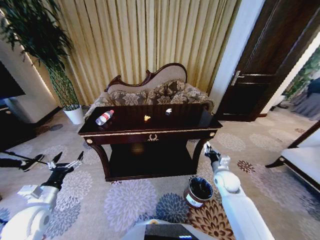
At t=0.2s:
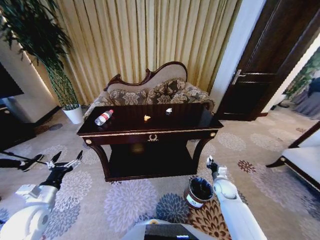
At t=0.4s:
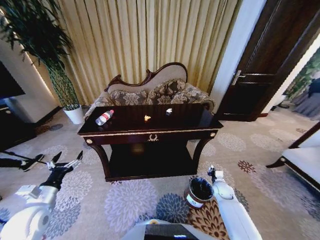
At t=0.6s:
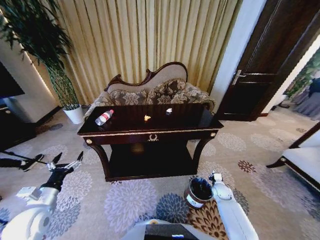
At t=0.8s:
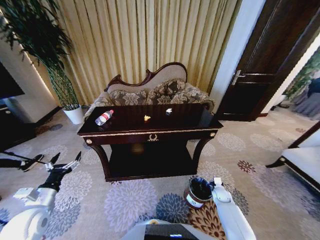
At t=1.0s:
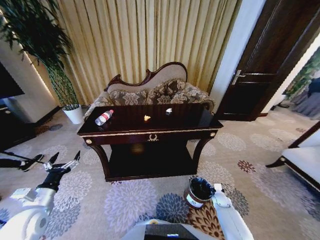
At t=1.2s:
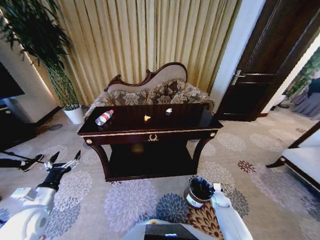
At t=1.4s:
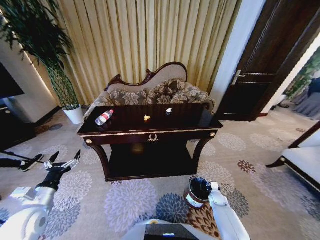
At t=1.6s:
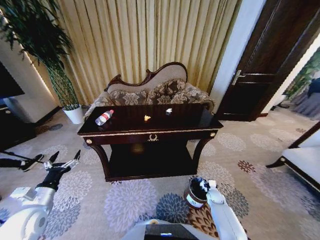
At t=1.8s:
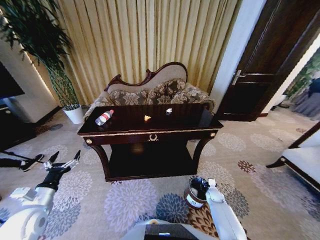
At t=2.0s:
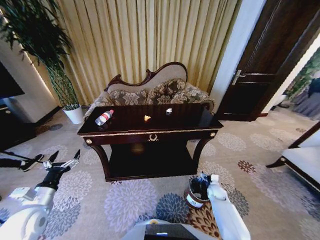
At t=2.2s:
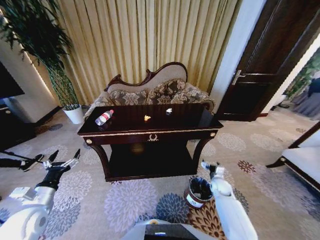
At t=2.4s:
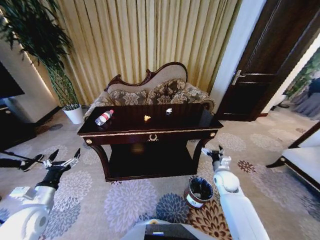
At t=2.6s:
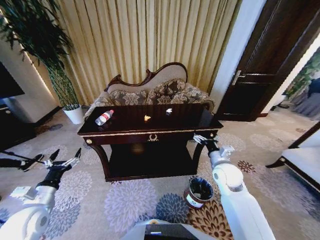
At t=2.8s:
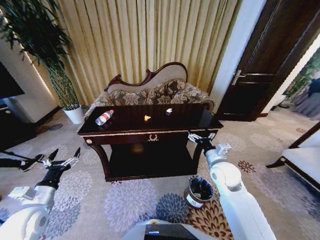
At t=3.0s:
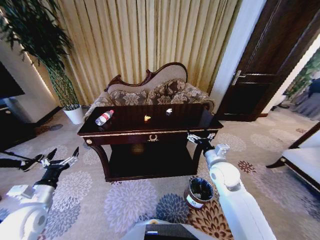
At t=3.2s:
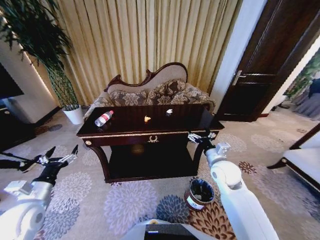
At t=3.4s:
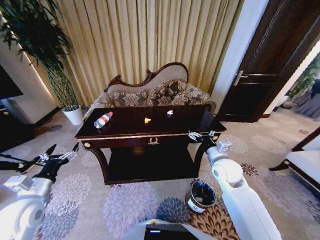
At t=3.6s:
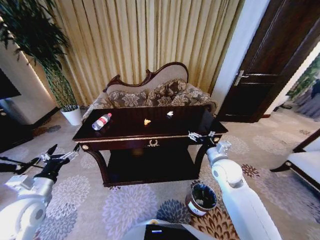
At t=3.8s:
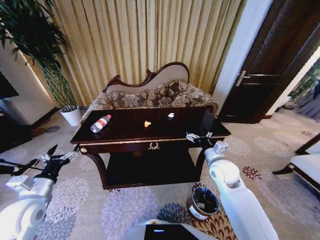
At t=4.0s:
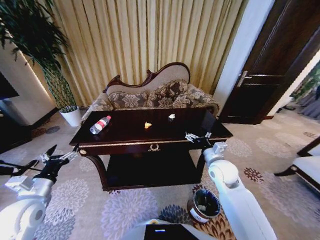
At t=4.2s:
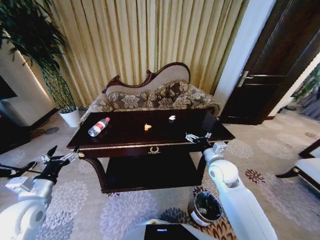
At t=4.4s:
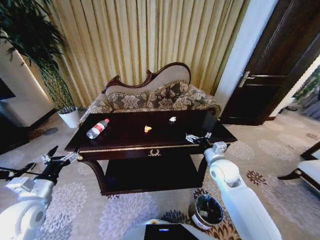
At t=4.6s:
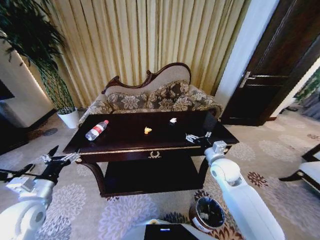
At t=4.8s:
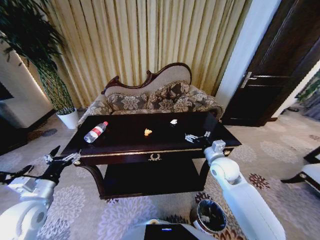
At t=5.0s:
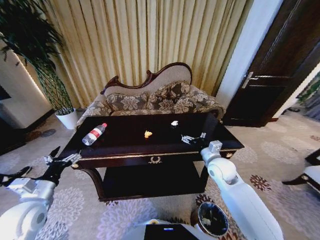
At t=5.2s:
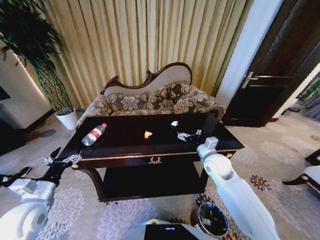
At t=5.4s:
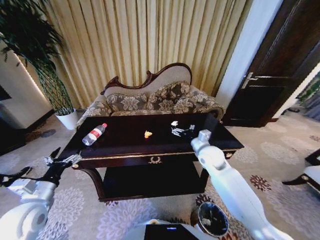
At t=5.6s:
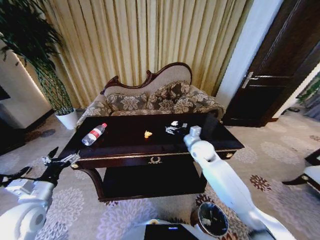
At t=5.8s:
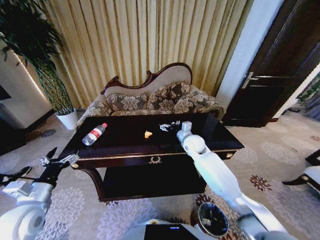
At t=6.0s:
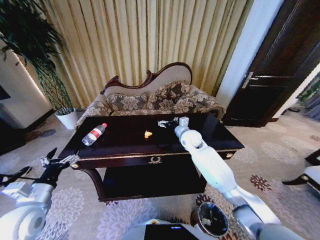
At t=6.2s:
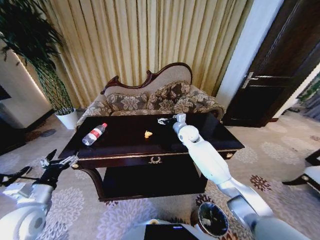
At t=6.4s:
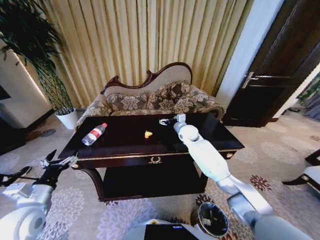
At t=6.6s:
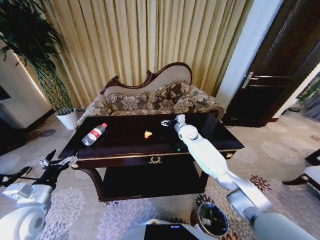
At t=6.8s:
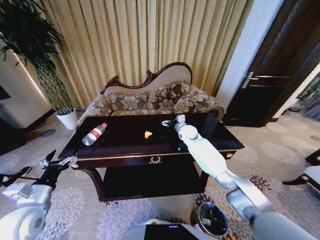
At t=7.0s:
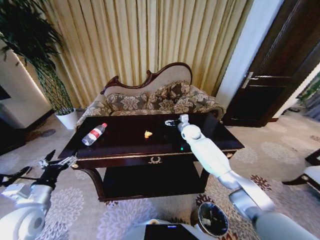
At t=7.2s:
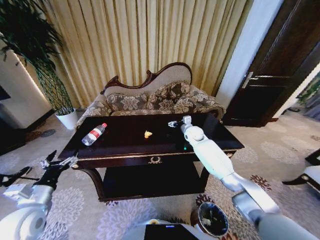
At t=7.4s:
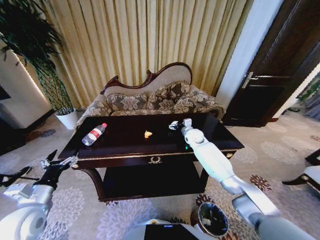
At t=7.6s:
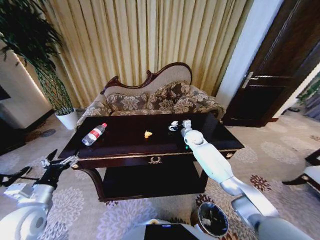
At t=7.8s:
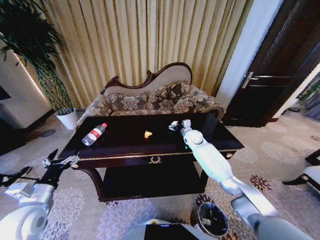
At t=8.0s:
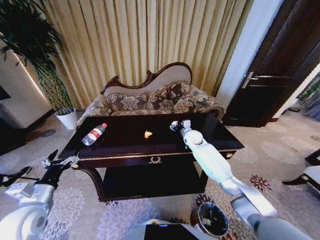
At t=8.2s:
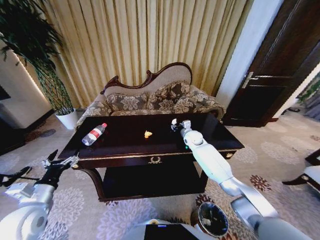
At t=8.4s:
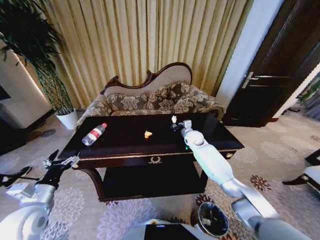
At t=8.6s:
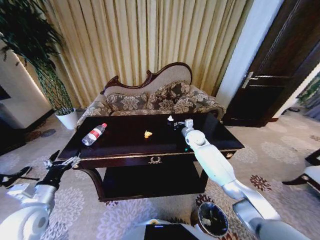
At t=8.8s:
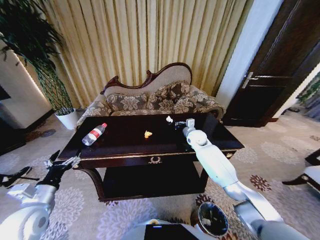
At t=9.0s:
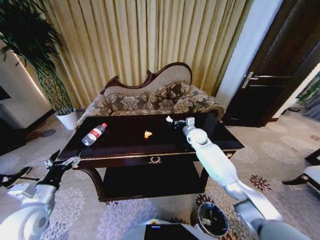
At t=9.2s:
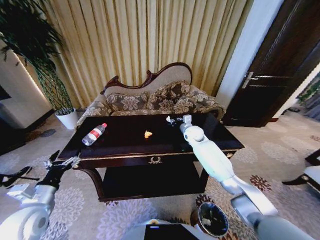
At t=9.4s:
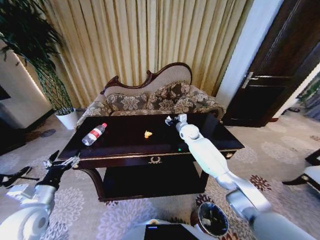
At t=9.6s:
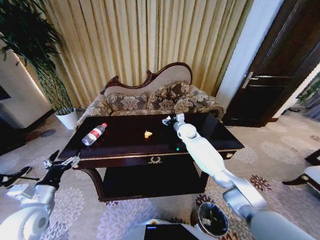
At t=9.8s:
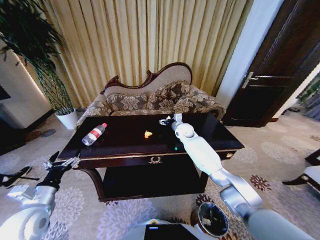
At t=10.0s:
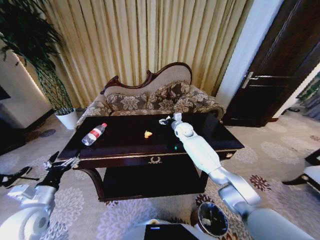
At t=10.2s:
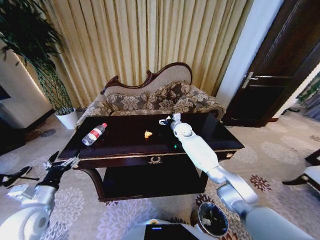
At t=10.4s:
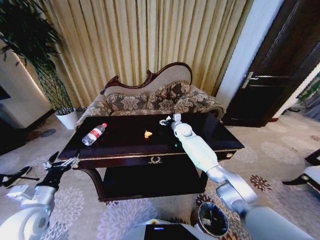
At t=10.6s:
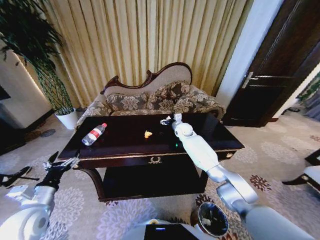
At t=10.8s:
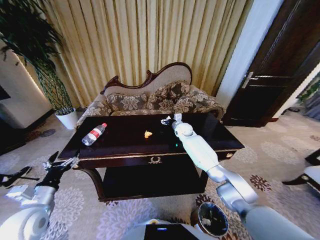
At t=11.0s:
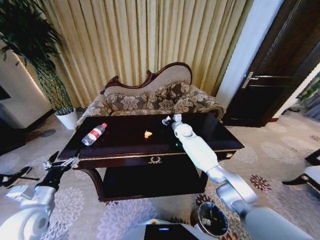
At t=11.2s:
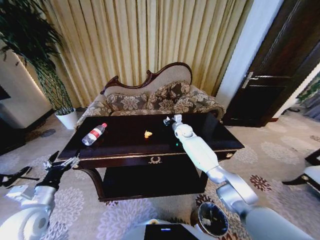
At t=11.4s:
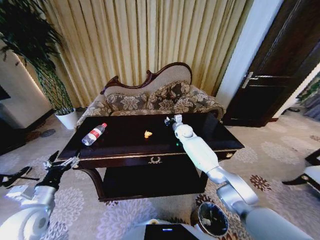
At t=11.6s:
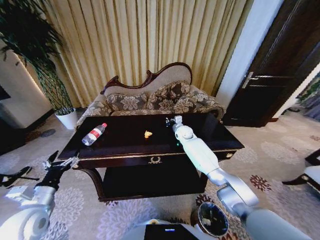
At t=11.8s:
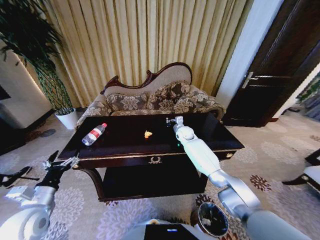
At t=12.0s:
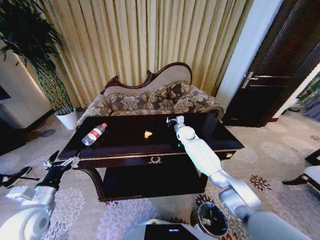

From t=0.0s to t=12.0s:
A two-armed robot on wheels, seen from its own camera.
Task of the whole recording: Move to the front of the table and place the trash on the table into the trash bin.
From t=0.0s to t=1.6s: The right gripper travels downward by about 20 cm.
From t=1.6s to t=3.0s: The right gripper is displaced upward by roughly 35 cm, and opens.
From t=4.4s to t=6.0s: The right gripper travels forward and to the left by roughly 20 cm.
From t=6.0s to t=7.6s: The right gripper heads downward and forward, covering roughly 10 cm.
From t=7.6s to t=9.0s: The right gripper closes.
From t=9.0s to t=10.4s: The right gripper is displaced forward and to the left by about 10 cm, and opens.
From t=10.4s to t=12.0s: The right gripper closes.

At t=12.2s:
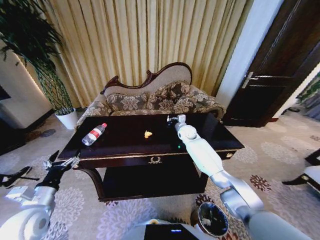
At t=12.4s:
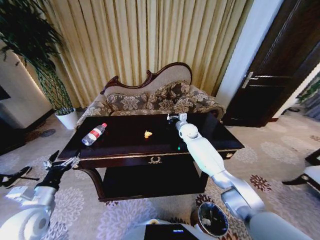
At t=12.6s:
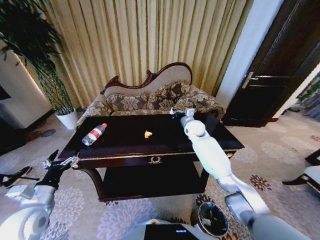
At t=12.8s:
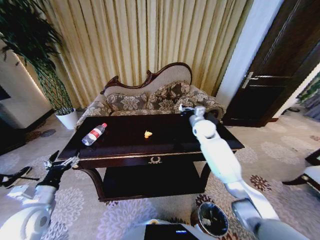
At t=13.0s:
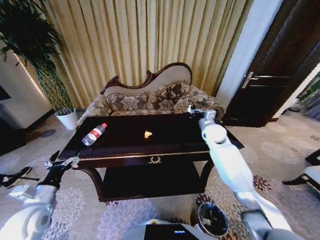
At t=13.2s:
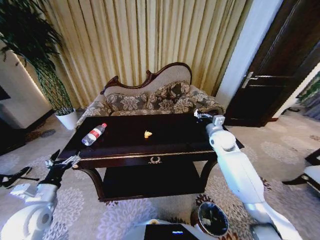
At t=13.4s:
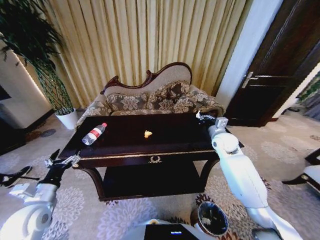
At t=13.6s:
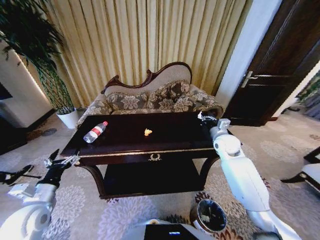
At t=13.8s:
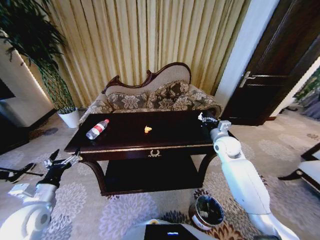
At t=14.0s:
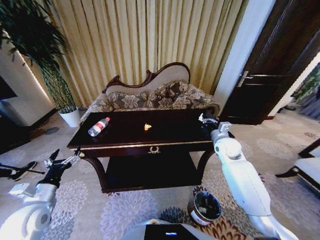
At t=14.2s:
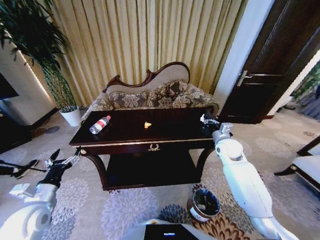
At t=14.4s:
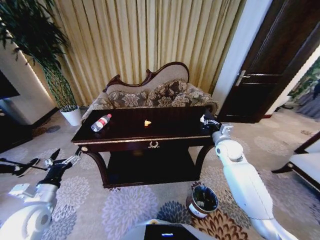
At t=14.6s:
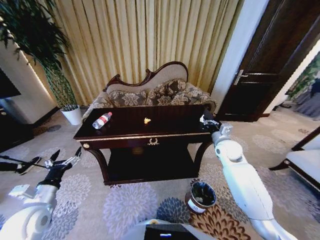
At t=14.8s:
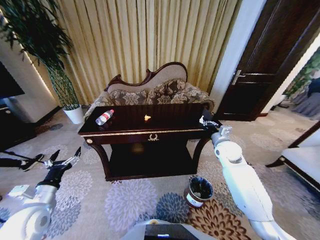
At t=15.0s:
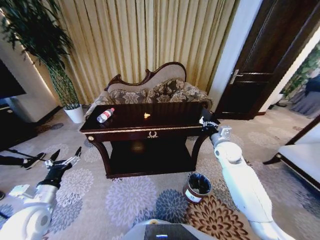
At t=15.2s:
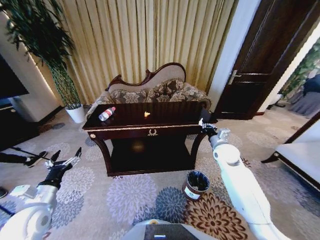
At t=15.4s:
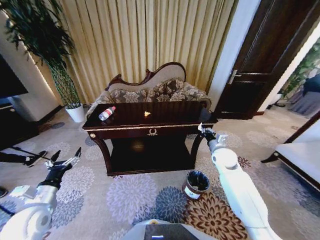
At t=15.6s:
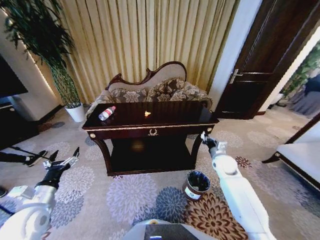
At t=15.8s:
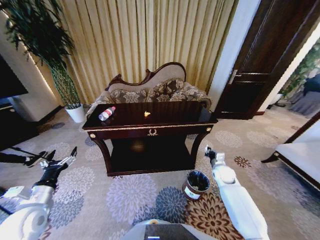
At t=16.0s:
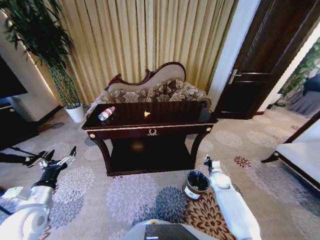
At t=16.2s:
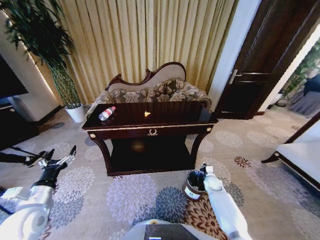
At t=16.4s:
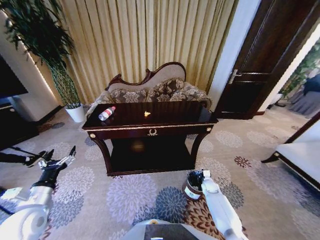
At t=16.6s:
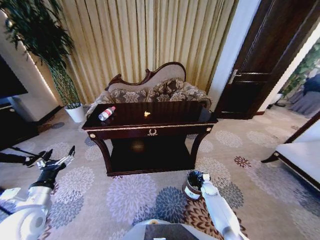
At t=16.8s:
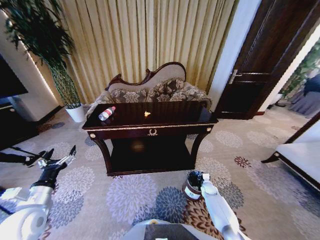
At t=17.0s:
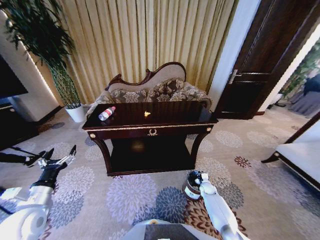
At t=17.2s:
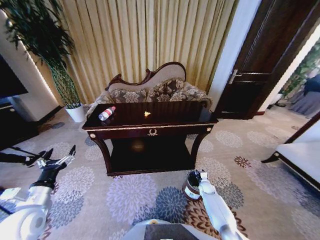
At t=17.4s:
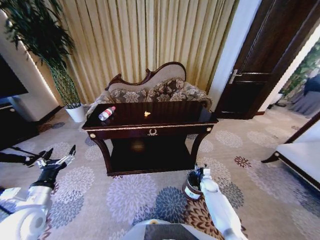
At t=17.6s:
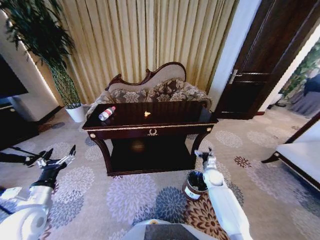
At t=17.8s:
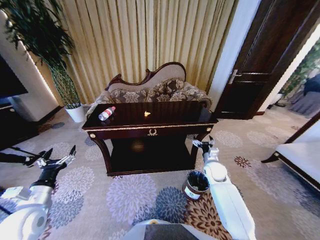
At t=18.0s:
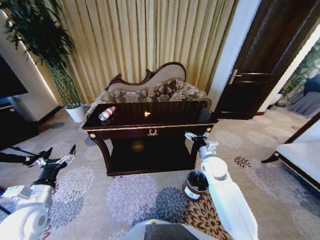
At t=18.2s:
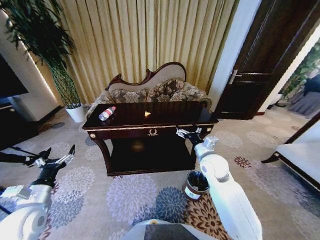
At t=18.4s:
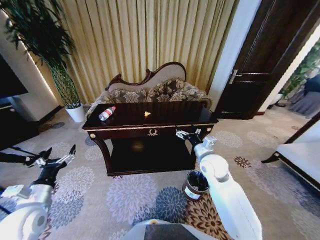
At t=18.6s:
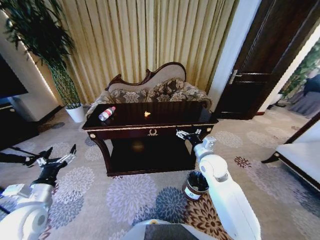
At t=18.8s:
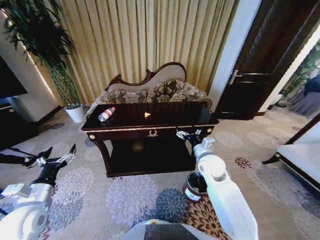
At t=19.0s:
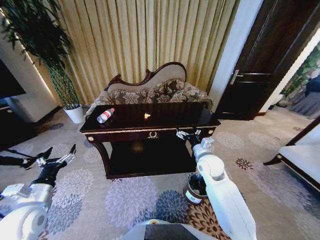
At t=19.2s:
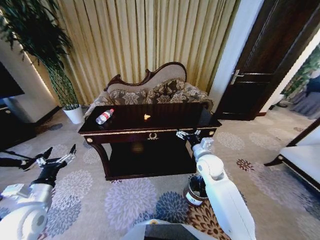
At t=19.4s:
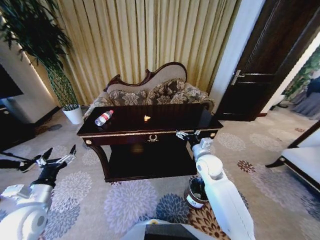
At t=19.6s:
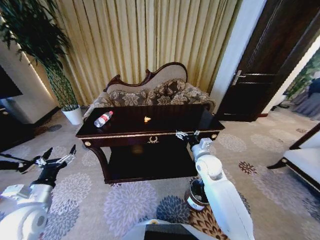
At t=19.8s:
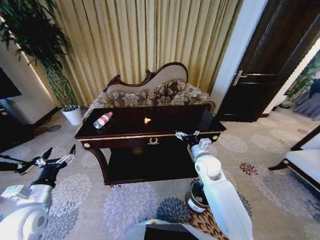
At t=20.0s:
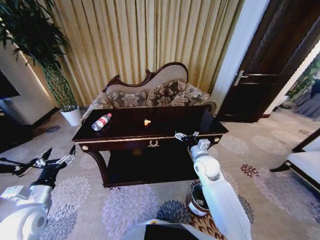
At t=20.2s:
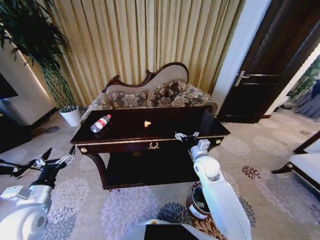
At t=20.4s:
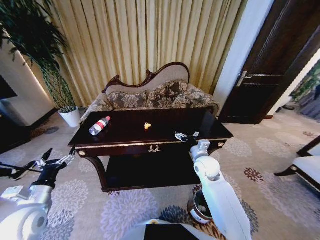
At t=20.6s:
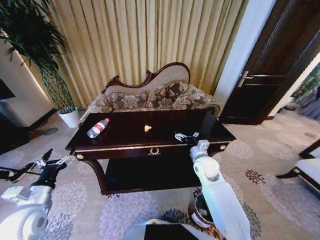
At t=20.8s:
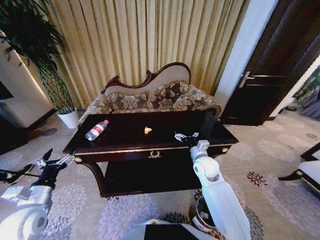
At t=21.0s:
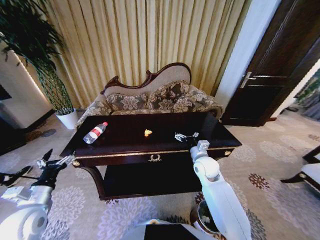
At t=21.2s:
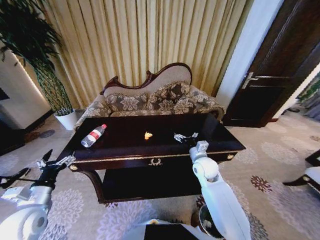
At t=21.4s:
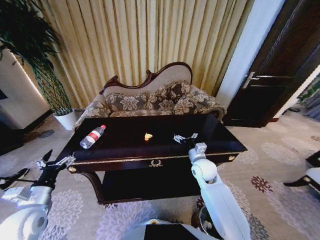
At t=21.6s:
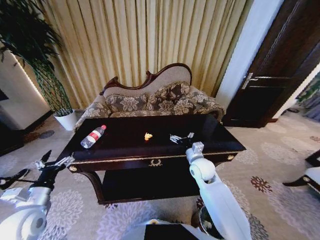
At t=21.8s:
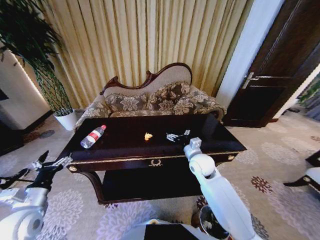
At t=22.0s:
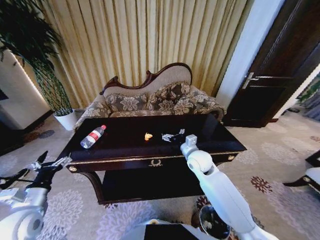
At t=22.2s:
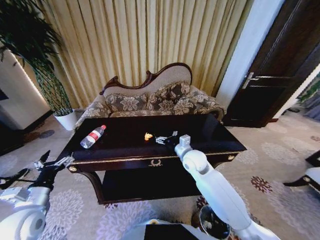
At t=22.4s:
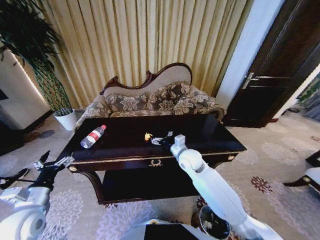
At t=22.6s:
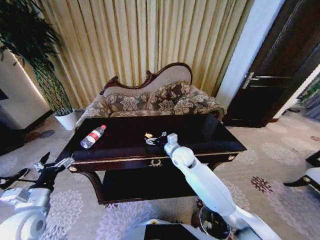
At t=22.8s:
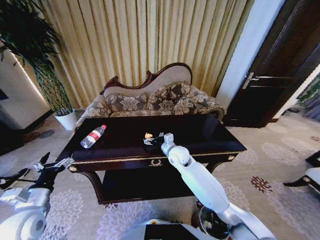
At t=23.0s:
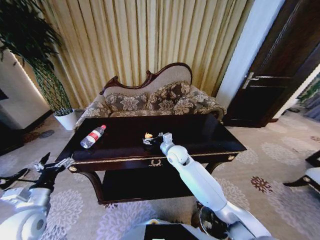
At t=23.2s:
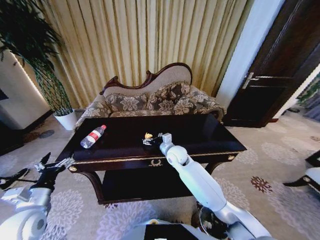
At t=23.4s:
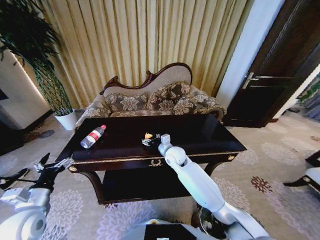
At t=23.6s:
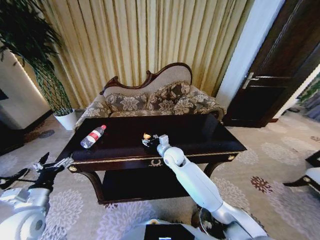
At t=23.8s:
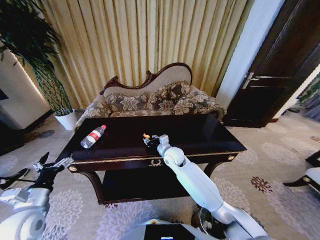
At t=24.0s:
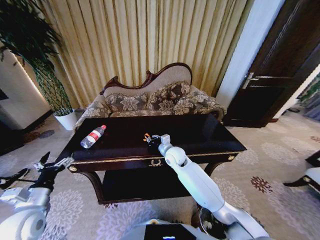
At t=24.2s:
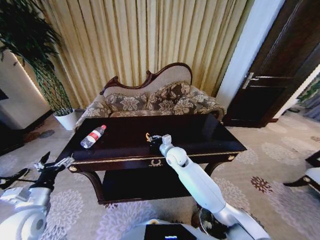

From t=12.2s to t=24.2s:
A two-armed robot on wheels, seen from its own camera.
Task of the whole recording: Move to the front of the table and place the trash on the table into the trash bin.
From t=12.2s to t=13.8s: The right gripper travels backward and to the right by about 20 cm.
From t=15.2s to t=16.6s: The right gripper heads downward, covering some 35 cm.
From t=16.6s to t=18.2s: The right gripper moves upward, about 35 cm, and opens.
From t=21.2s to t=22.6s: The right gripper is displaced to the left by approximately 10 cm.
From t=22.6s to t=24.2s: The right gripper closes up.
